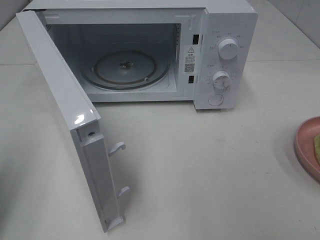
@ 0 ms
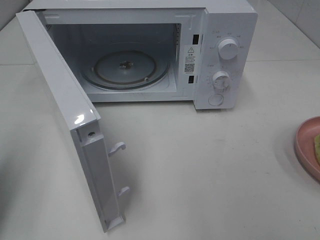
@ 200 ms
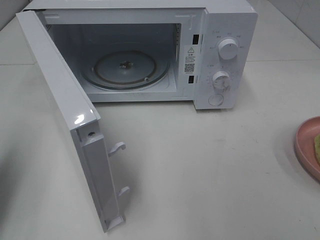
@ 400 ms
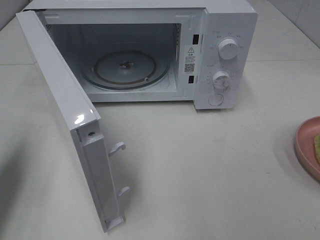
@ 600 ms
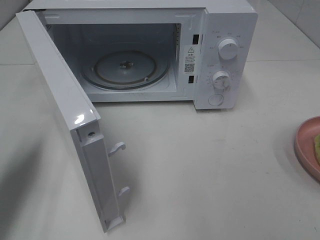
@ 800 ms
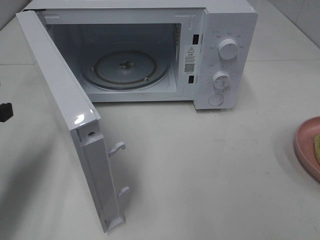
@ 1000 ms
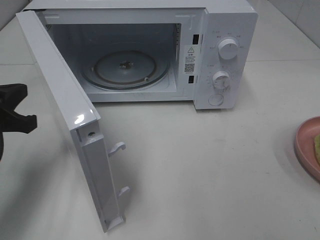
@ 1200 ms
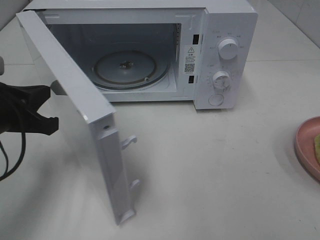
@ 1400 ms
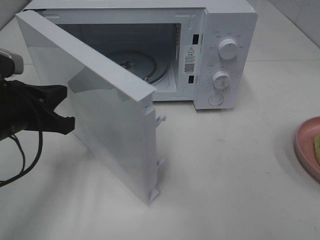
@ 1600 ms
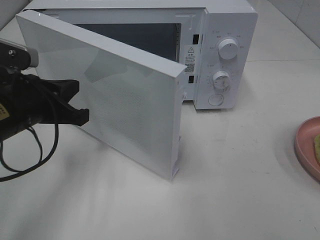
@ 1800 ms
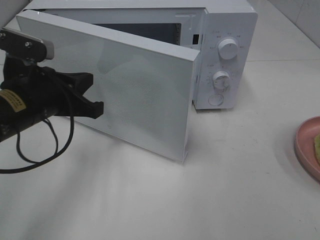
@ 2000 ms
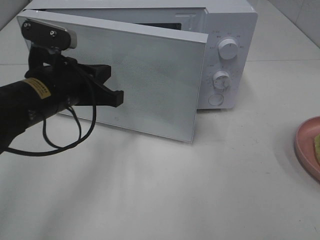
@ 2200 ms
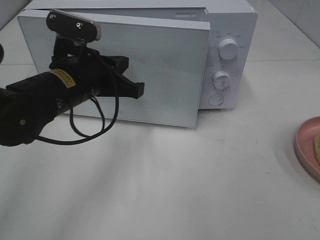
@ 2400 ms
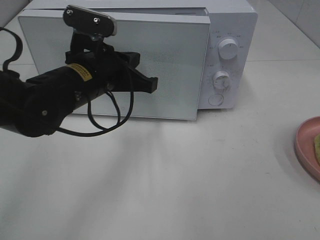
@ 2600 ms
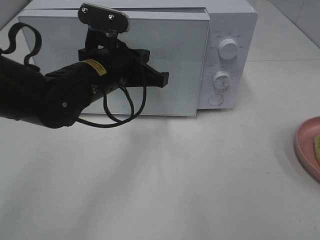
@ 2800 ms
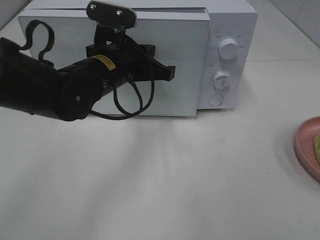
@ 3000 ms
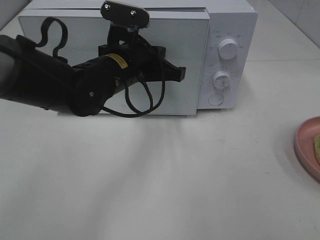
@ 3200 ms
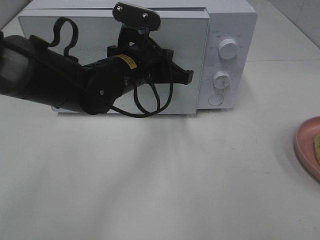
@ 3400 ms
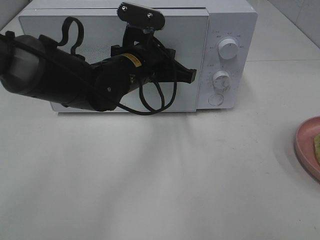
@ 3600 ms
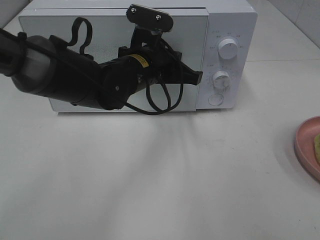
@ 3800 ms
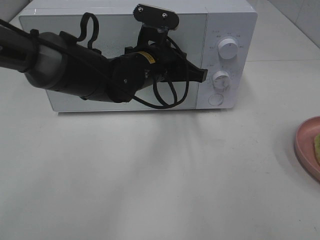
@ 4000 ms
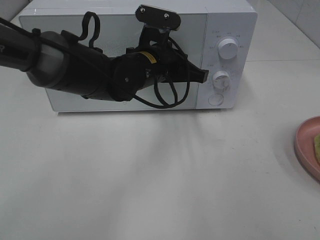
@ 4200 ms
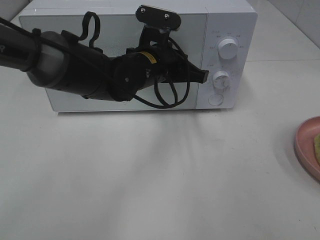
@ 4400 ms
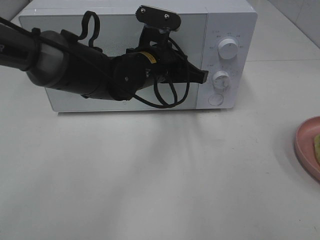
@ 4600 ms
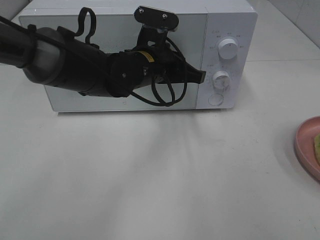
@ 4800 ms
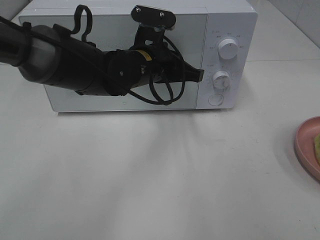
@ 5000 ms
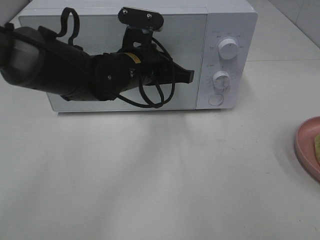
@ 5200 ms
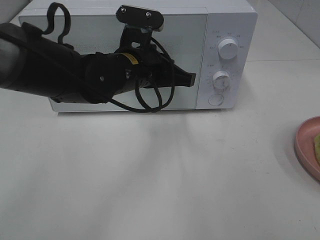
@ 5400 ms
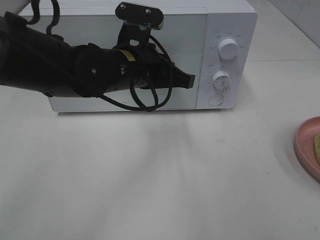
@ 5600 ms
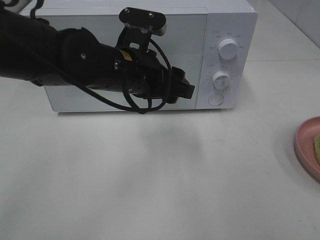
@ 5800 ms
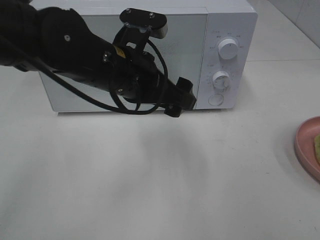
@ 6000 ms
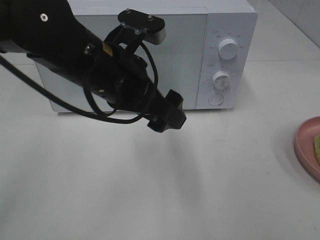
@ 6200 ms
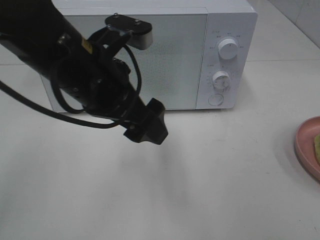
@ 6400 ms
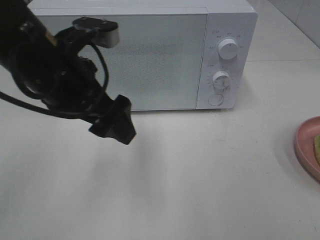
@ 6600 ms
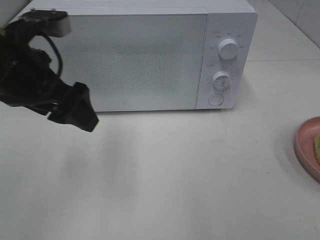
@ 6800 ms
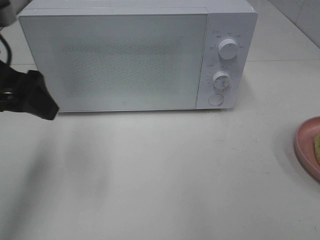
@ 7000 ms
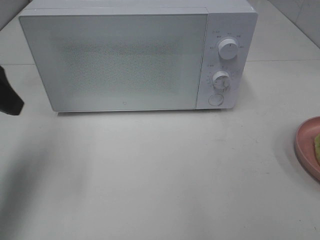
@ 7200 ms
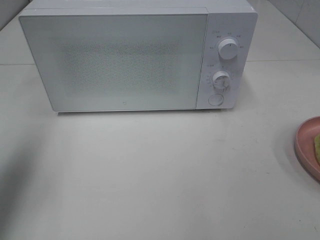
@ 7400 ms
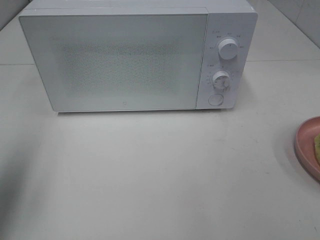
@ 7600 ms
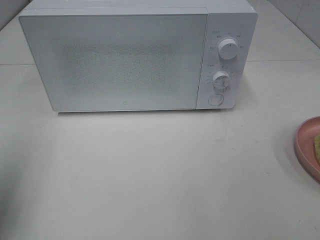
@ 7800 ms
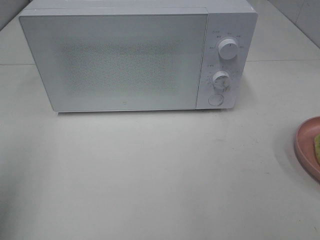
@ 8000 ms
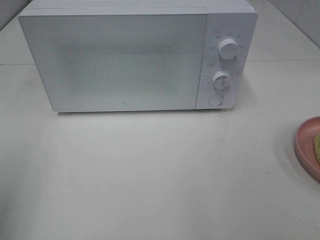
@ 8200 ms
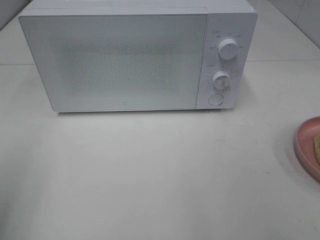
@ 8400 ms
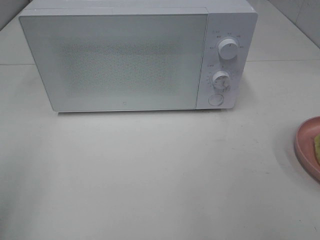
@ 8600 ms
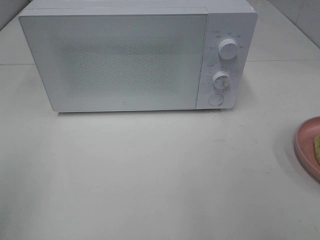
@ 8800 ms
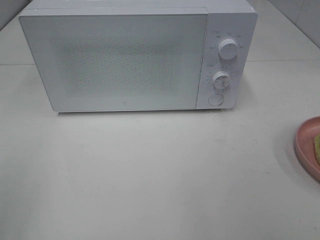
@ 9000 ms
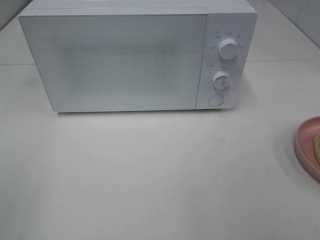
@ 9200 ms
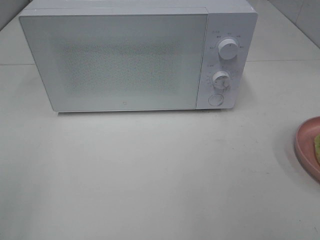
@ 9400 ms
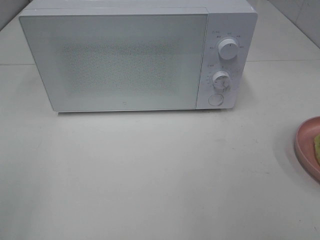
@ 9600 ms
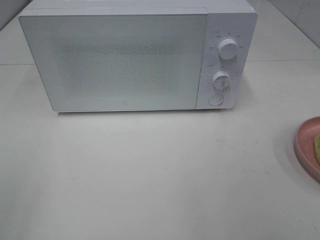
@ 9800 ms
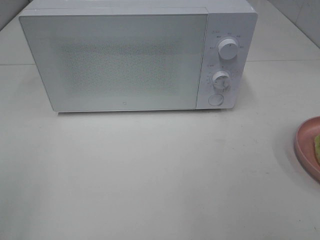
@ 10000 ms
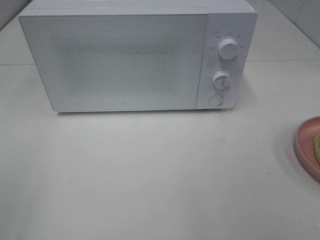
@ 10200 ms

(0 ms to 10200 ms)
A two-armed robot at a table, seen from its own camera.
Task of the whole recording: Heat Sandwich.
Step, 0 ms - 5400 ms: Left hand: close the microwave door.
0 ms - 1400 ms: The left gripper travels forward, to the right and downward by some 15 cm.
1400 ms - 3000 ms: The left gripper moves to the right and forward, about 20 cm.
3000 ms - 4400 ms: The left gripper shifts some 5 cm to the right.
4400 ms - 5800 ms: The left gripper shifts some 5 cm backward, and opens.
5800 ms - 7200 ms: The left gripper heads to the left, covering some 25 cm.
7200 ms - 8800 ms: The left gripper shifts approximately 20 cm backward.

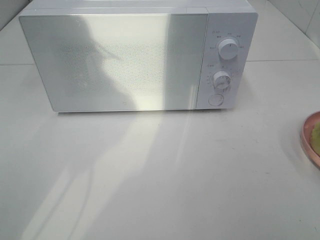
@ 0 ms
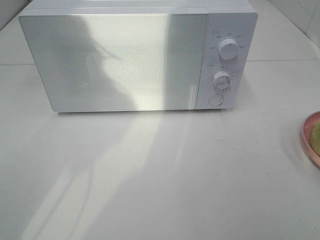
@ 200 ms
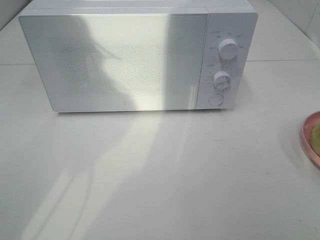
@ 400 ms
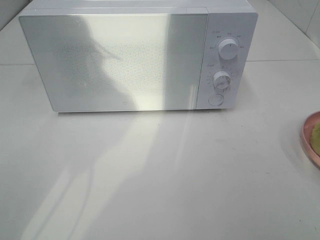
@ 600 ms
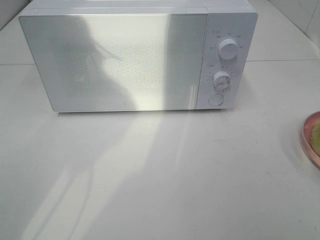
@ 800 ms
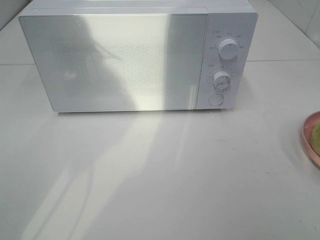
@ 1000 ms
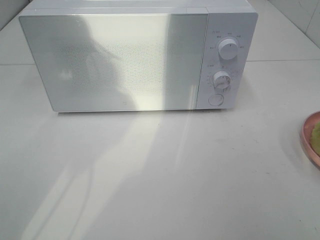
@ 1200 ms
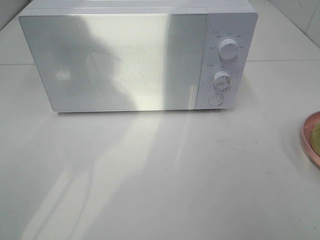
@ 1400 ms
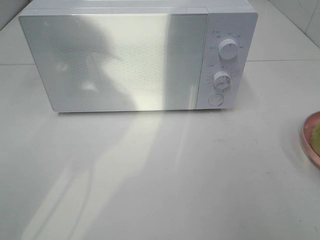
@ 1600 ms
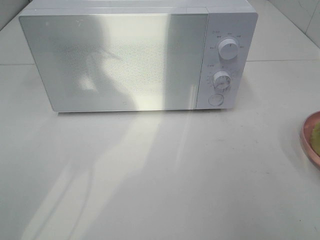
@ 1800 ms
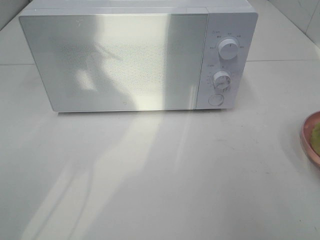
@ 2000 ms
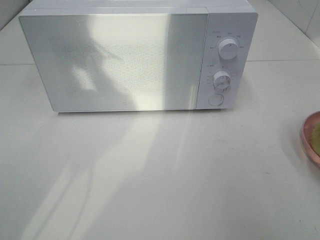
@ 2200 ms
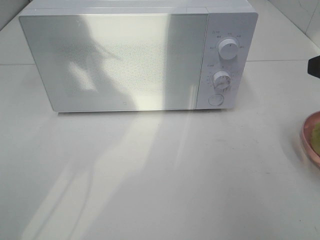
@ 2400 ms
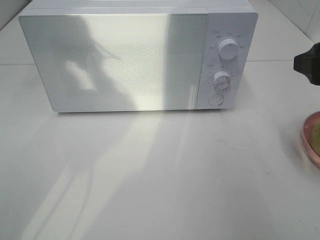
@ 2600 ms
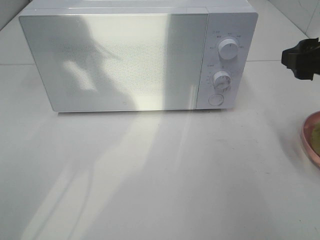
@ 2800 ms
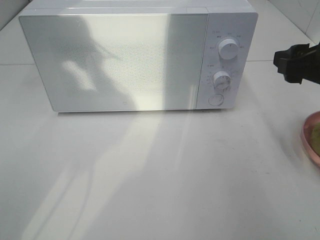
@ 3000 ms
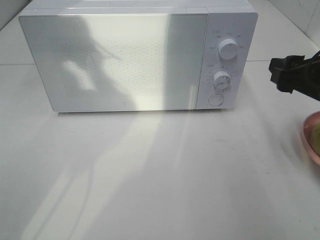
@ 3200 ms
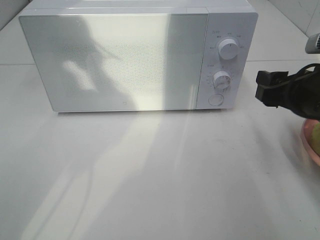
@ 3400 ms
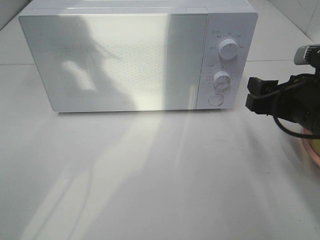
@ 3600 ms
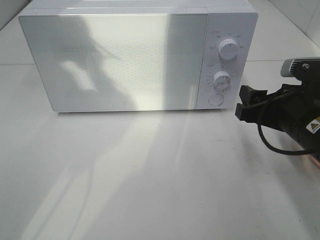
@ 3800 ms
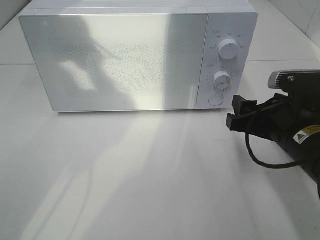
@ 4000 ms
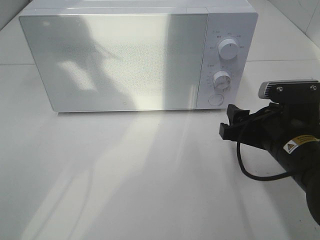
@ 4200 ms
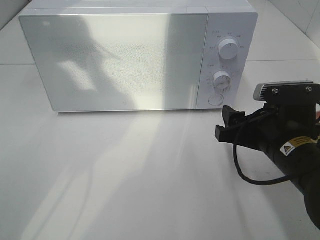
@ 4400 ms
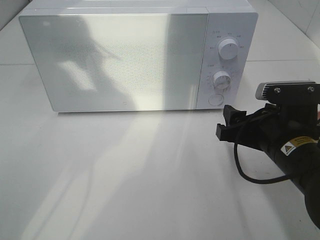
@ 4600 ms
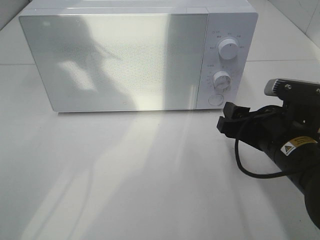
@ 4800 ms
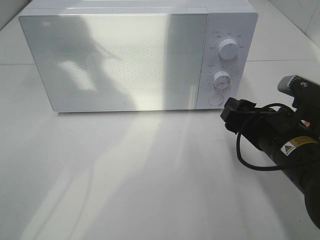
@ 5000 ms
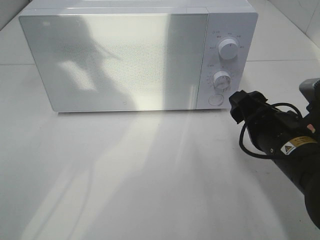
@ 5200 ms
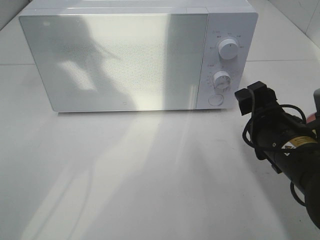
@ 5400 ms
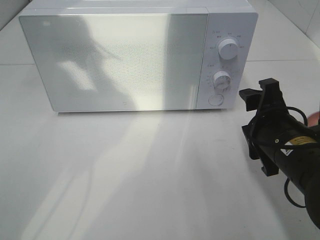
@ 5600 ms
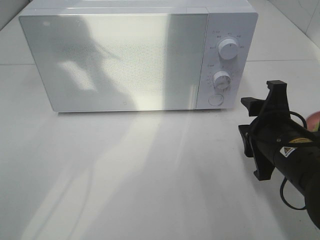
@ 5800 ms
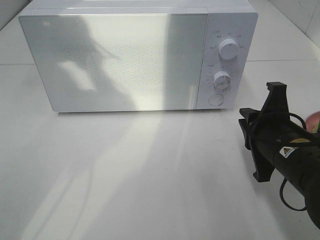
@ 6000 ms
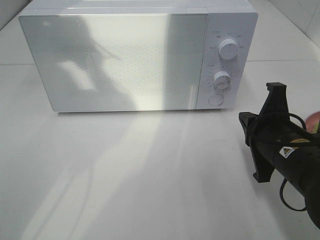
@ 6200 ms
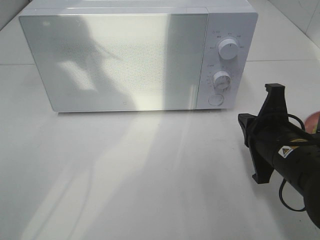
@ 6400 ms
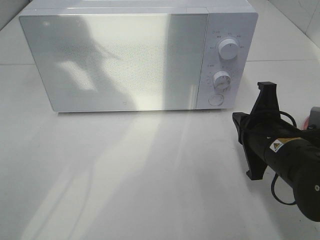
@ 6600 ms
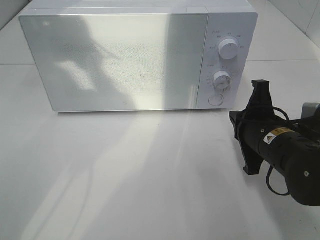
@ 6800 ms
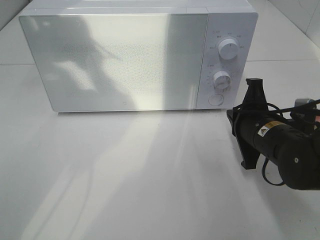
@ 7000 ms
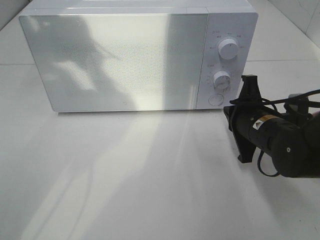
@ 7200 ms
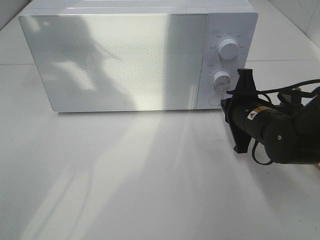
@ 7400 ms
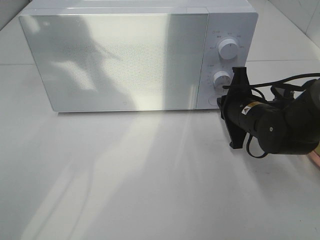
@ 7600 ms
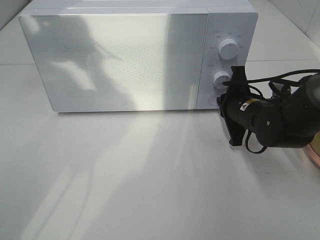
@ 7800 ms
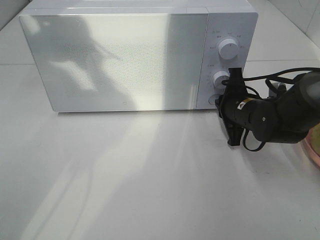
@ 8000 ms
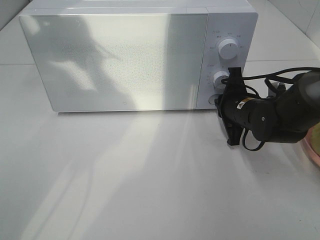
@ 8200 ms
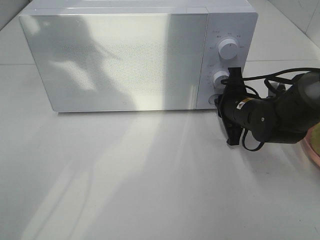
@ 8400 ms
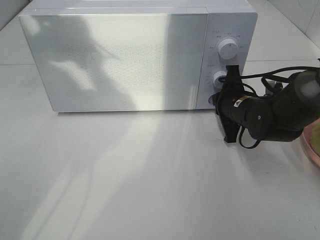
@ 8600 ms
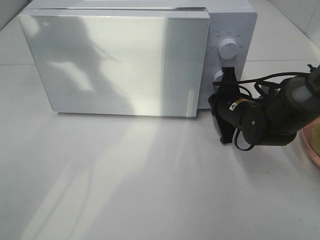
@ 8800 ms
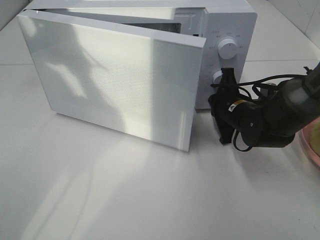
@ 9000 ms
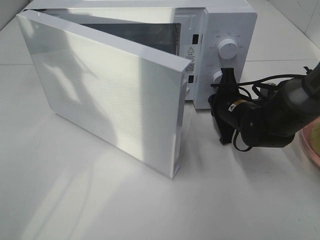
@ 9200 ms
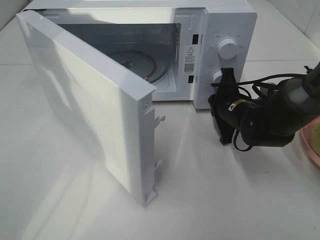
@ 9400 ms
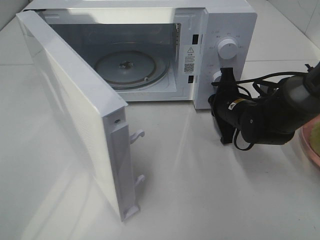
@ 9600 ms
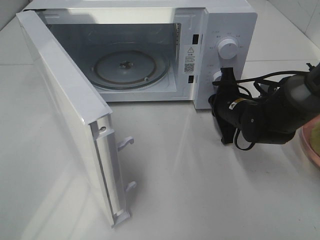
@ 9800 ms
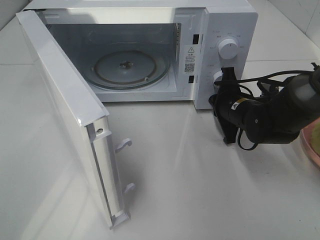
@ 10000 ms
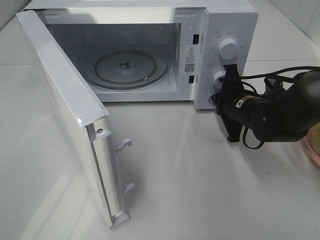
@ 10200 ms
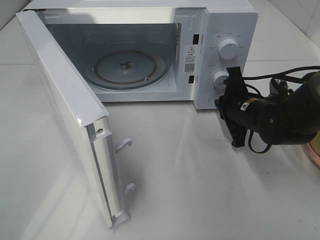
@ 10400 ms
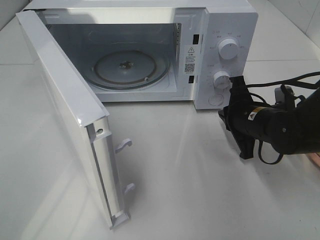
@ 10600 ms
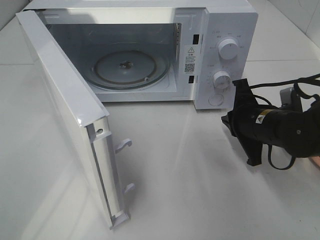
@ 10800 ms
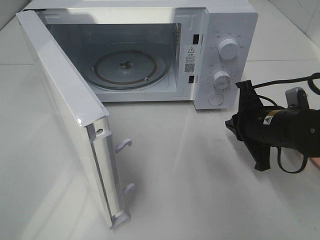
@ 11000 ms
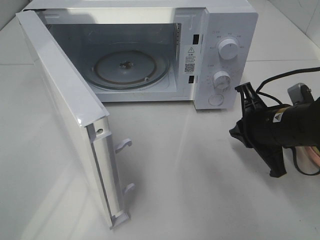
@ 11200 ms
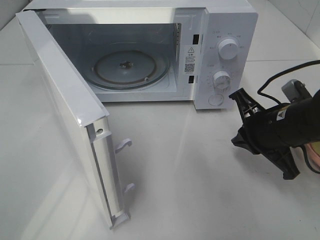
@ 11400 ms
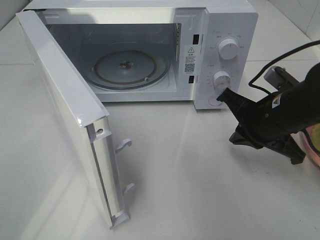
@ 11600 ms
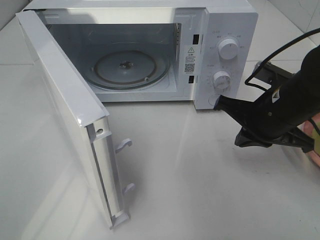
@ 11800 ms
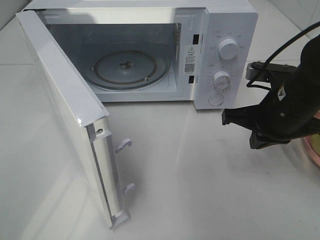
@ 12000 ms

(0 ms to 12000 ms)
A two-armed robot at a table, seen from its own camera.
Task of the whole recording: Heat Sandwich.
Step, 0 ms - 10400 ms: Right hand: press the switch.
1600 ms - 3000 ms: The right gripper shifts some 15 cm forward and downward.
3000 ms - 4400 ms: The right gripper goes approximately 10 cm downward and to the left.
4400 ms - 6000 ms: The right gripper closes its fingers.
6000 ms - 7600 ms: The right gripper heads forward, covering some 10 cm.
10400 ms - 12000 ms: The right gripper travels upward and backward by some 10 cm.
